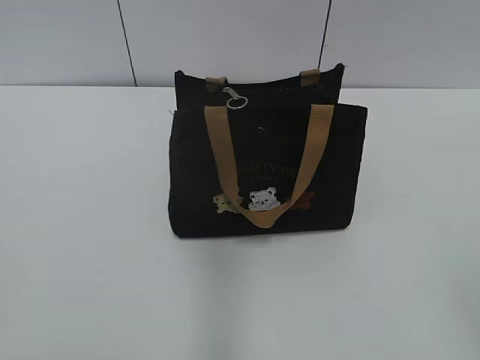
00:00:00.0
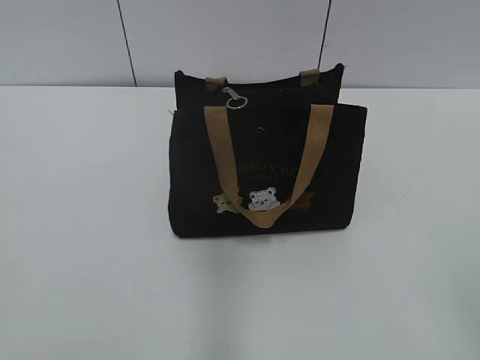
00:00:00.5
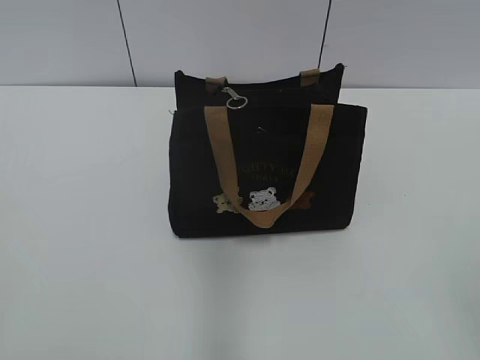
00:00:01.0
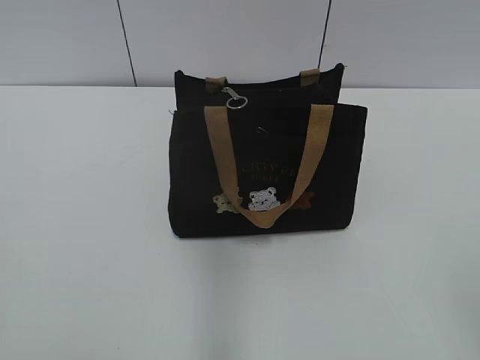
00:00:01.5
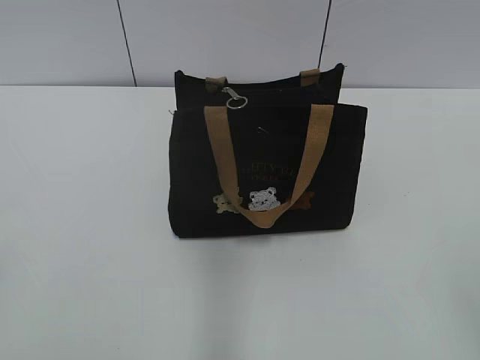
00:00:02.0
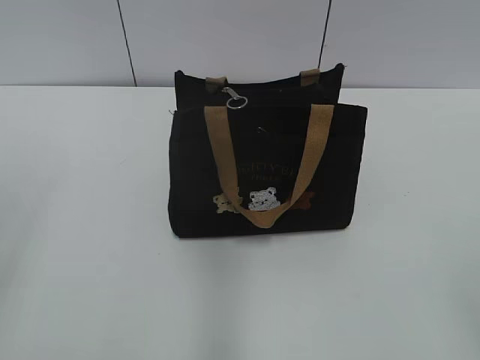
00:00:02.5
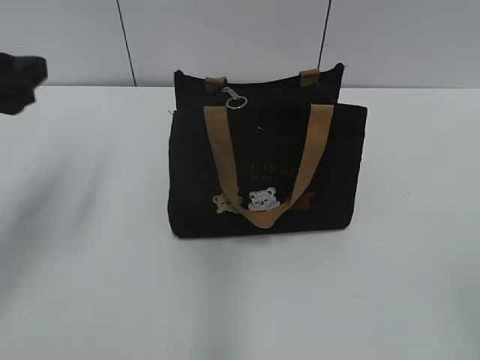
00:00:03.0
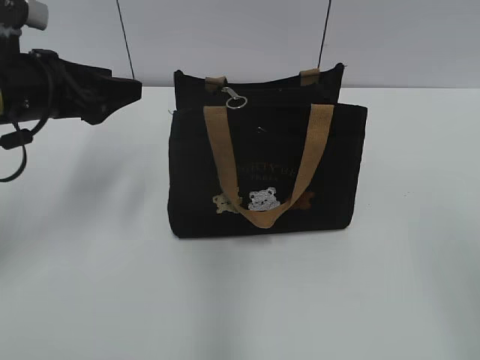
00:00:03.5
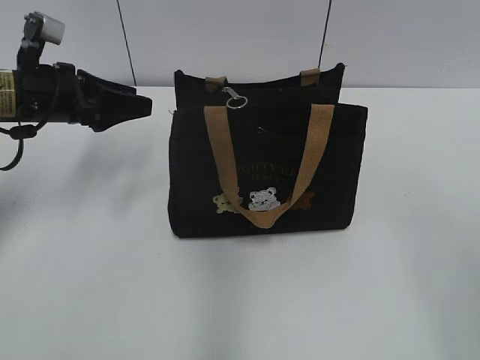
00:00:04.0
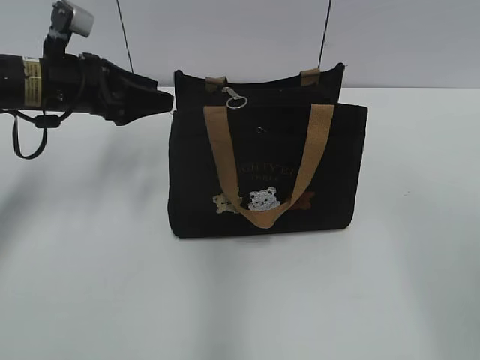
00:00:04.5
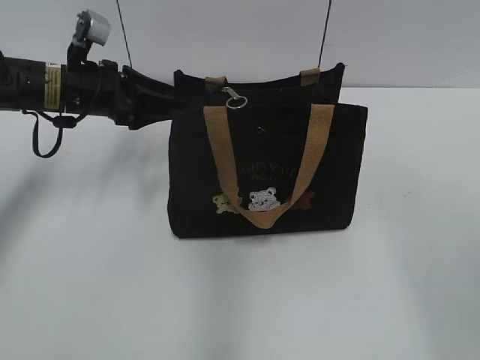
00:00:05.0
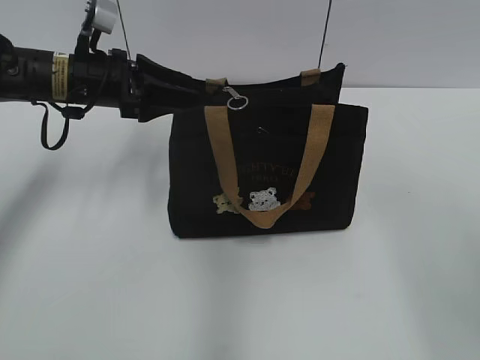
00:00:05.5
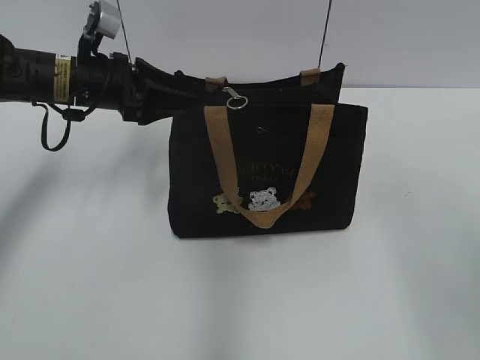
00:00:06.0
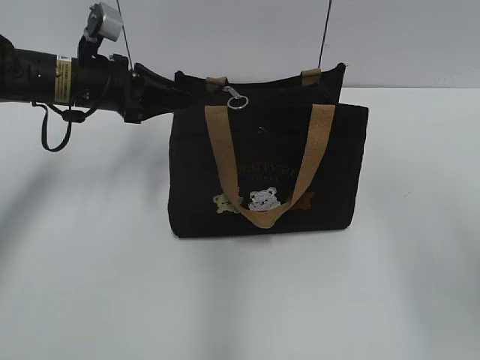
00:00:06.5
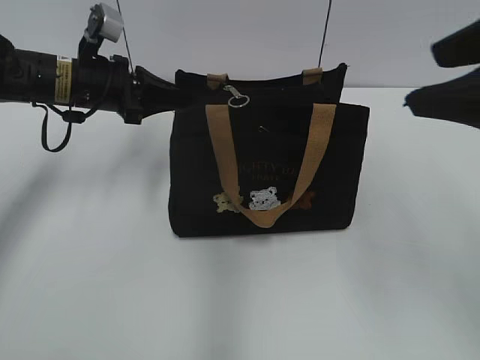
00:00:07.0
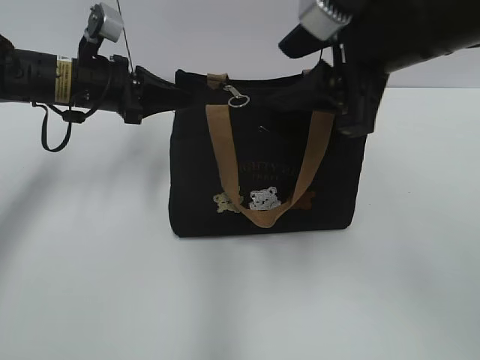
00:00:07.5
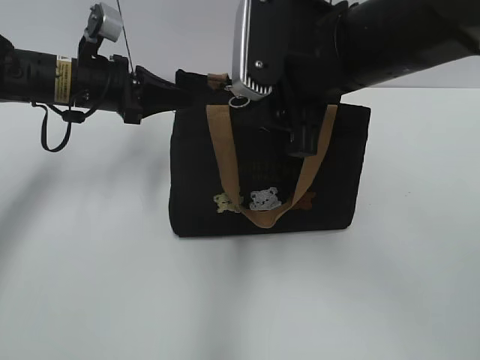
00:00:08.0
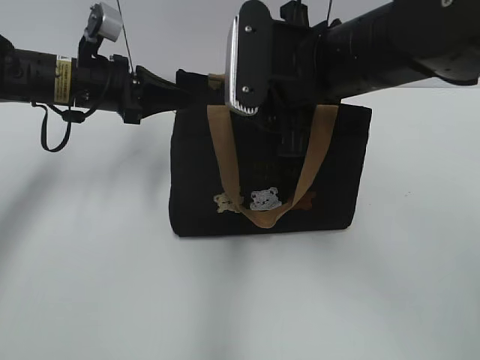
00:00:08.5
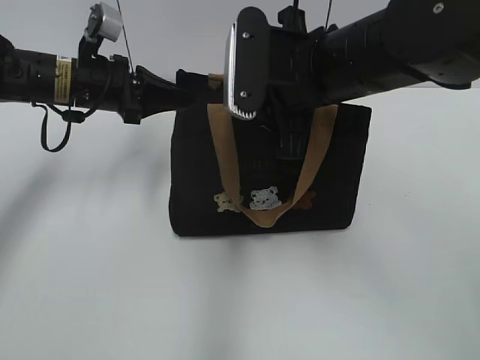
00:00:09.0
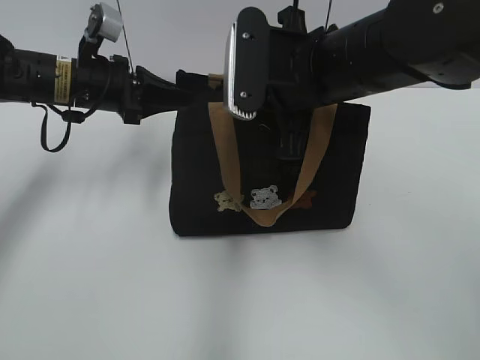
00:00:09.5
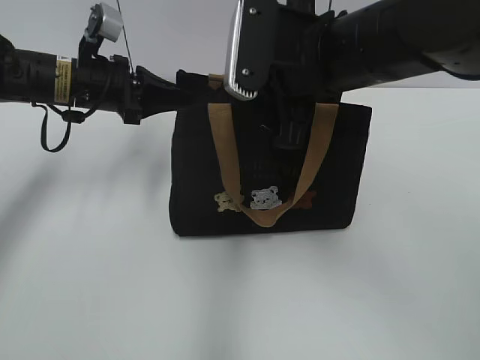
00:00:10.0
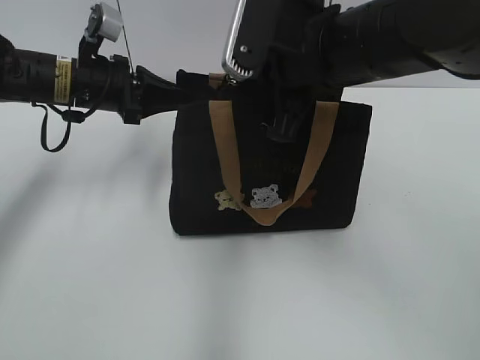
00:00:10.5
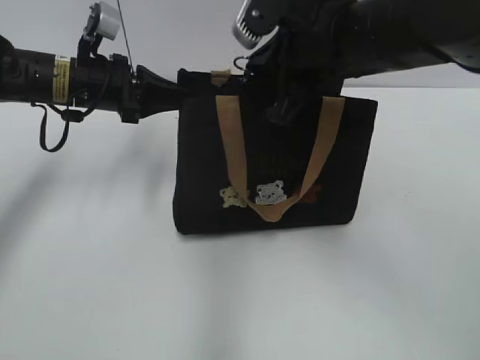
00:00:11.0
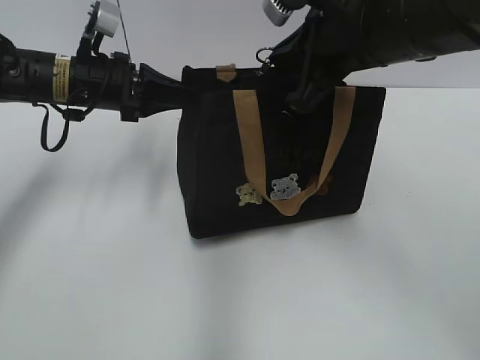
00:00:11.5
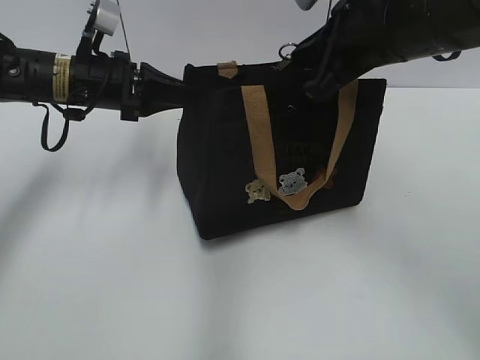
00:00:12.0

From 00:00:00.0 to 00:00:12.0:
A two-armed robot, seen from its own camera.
From 00:00:02.0 to 00:00:04.0: The left gripper moves forward, about 35 cm.
From 00:00:04.0 to 00:00:06.0: The left gripper is displaced to the right by roughly 5 cm.
From 00:00:06.0 to 00:00:08.0: The left gripper closes its fingers, while the right gripper goes about 25 cm to the left, forward and downward.
From 00:00:08.0 to 00:00:10.0: The right gripper closes its fingers.
From 00:00:10.0 to 00:00:12.0: The right gripper shifts some 5 cm to the right.

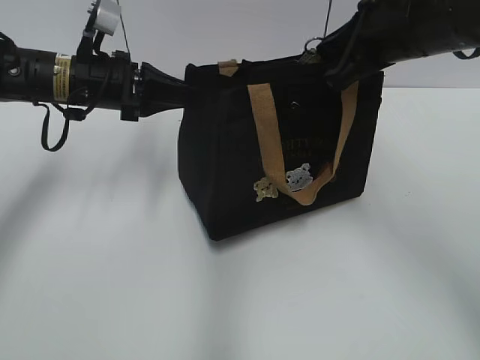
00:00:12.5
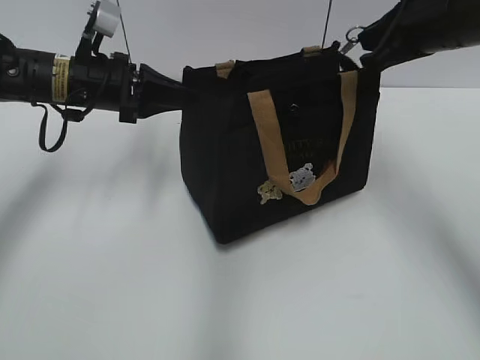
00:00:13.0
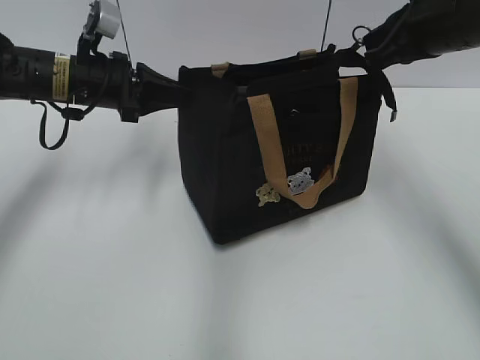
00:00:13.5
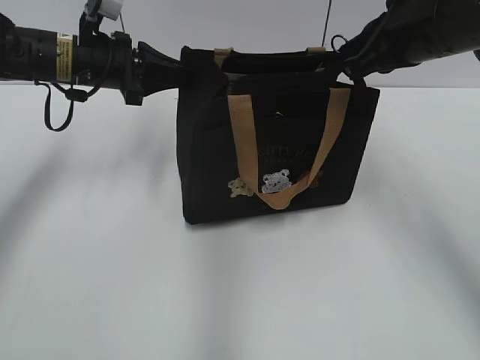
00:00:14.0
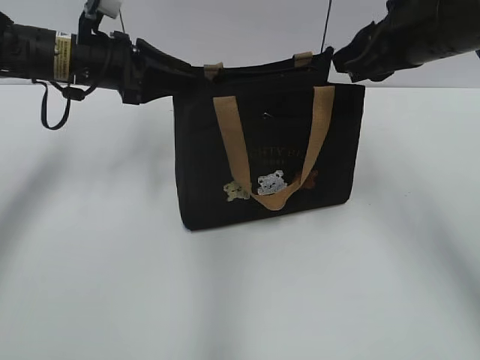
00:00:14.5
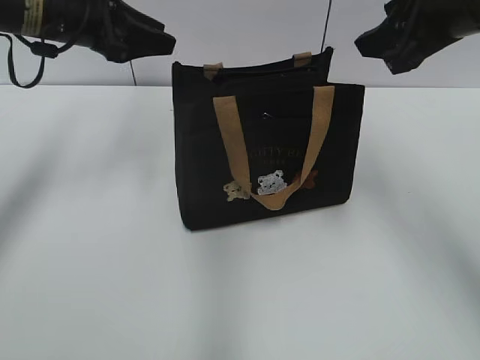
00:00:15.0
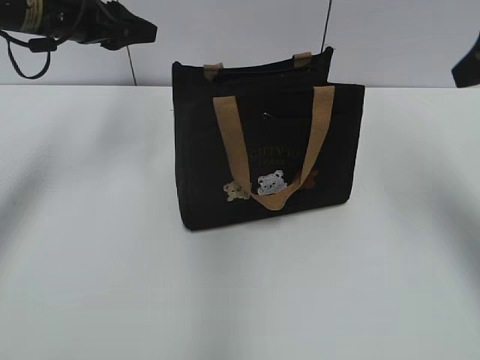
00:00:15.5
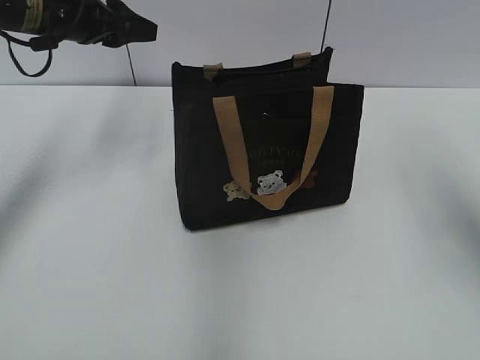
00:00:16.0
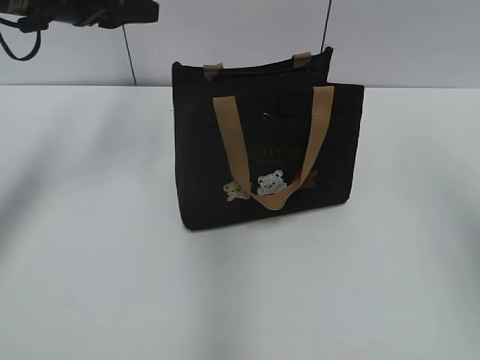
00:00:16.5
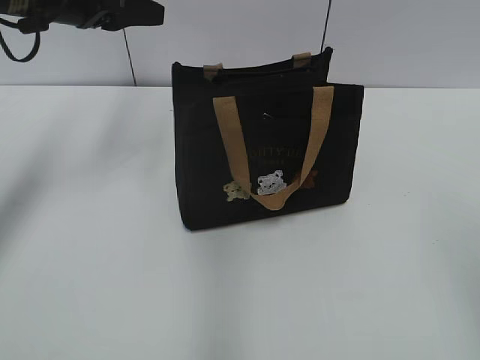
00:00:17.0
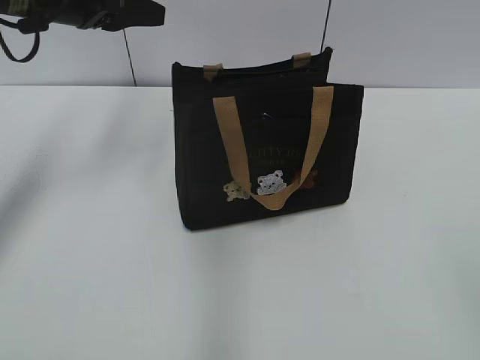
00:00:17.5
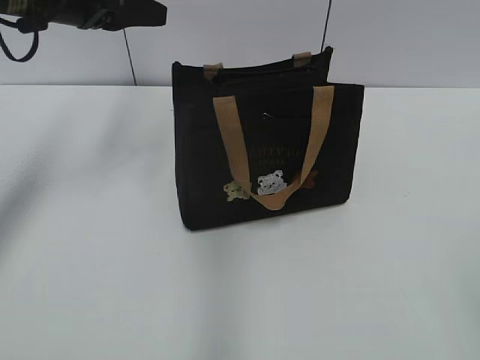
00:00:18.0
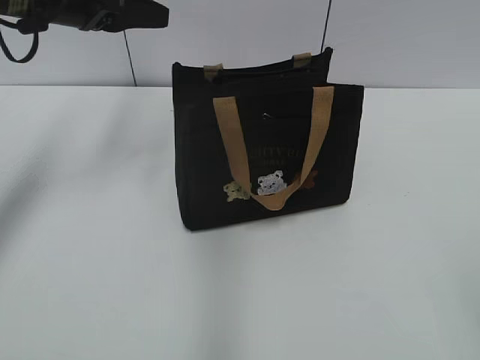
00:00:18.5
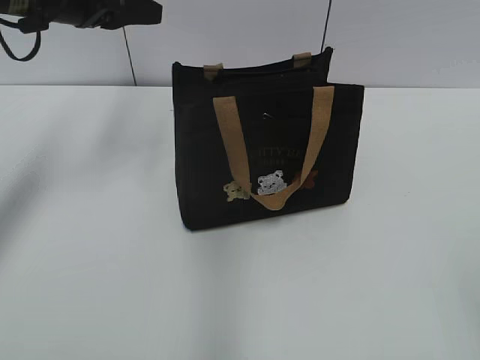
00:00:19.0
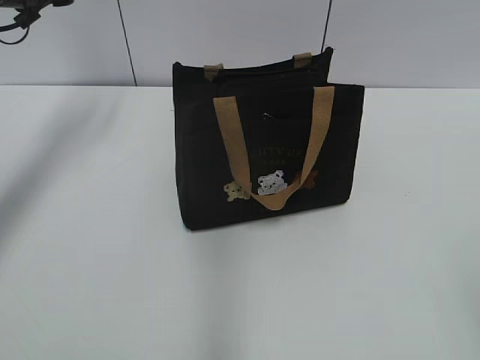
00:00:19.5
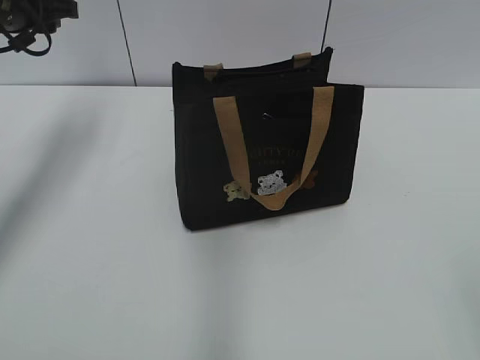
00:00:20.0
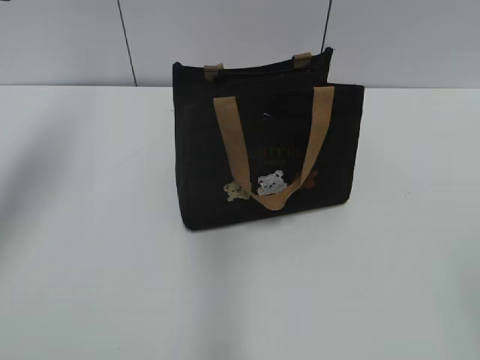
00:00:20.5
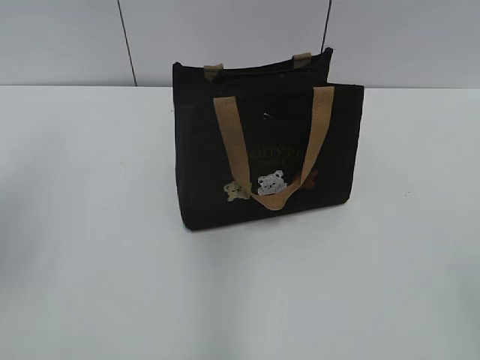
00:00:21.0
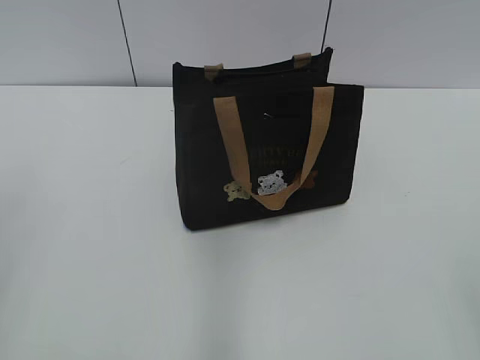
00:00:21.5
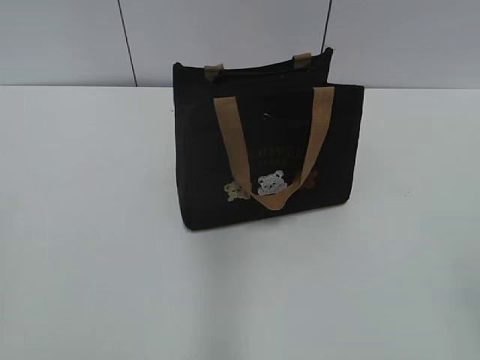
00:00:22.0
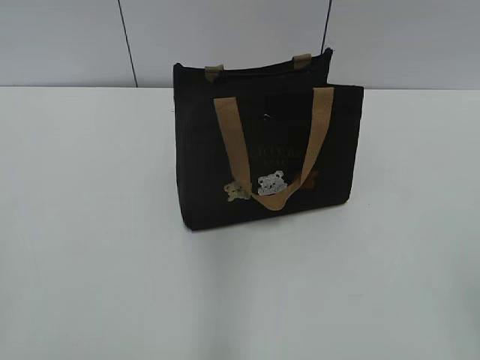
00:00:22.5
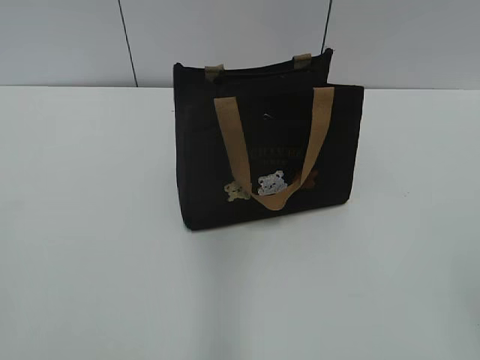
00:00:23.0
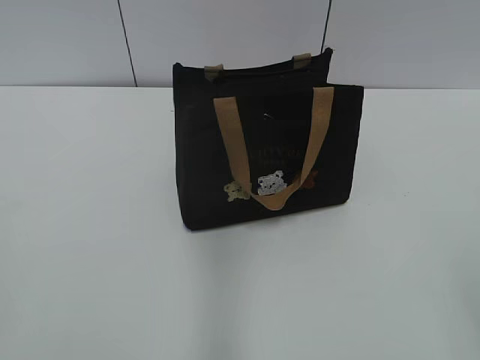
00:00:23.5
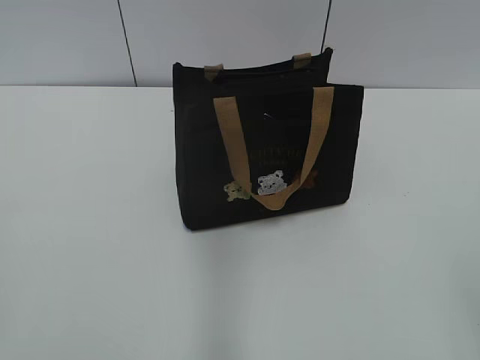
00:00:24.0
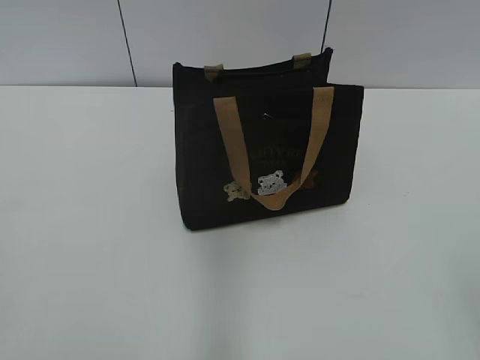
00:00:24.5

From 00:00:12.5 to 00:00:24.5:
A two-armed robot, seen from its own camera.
From 00:00:12.5 to 00:00:14.5: The left gripper opens up, while the right gripper opens its fingers.
From 00:00:14.5 to 00:00:16.5: The right gripper moves backward, upward and to the right, approximately 20 cm, and opens up, while the left gripper shifts about 10 cm upward.
From 00:00:16.5 to 00:00:18.5: The right gripper moves backward and downward, some 20 cm, and closes up.
From 00:00:18.5 to 00:00:20.5: The left gripper goes about 10 cm to the left, backward and upward.
From 00:00:20.5 to 00:00:22.5: The left gripper travels backward by approximately 35 cm.
